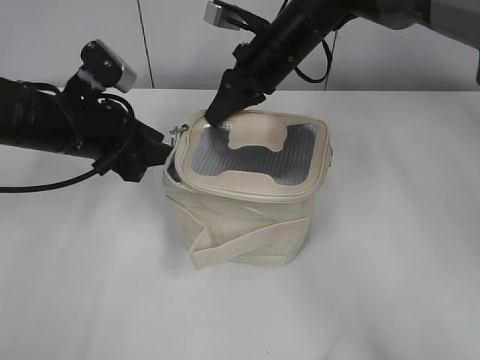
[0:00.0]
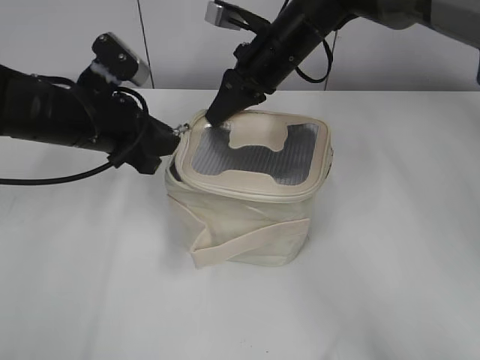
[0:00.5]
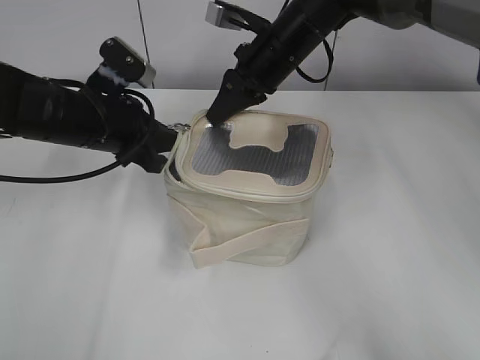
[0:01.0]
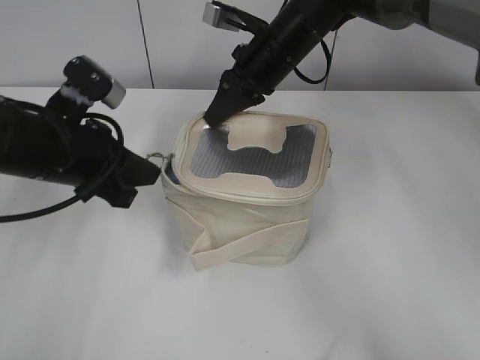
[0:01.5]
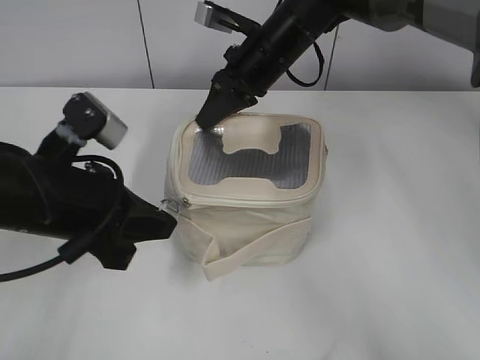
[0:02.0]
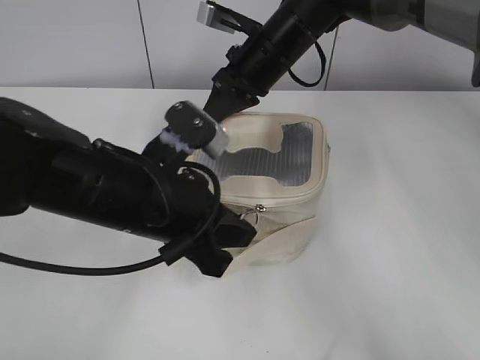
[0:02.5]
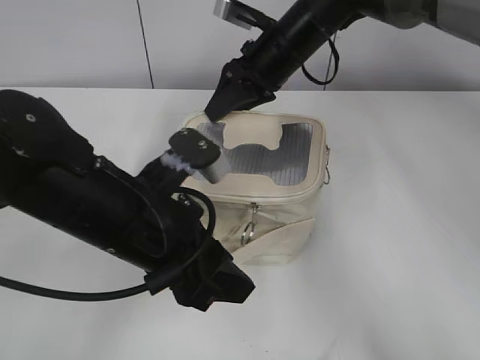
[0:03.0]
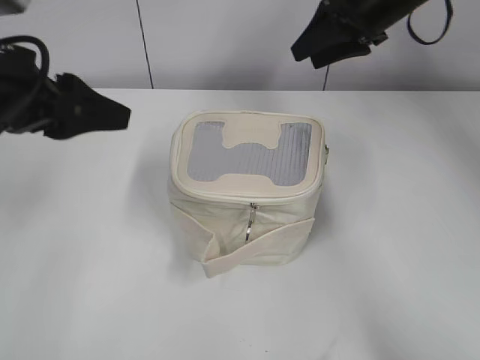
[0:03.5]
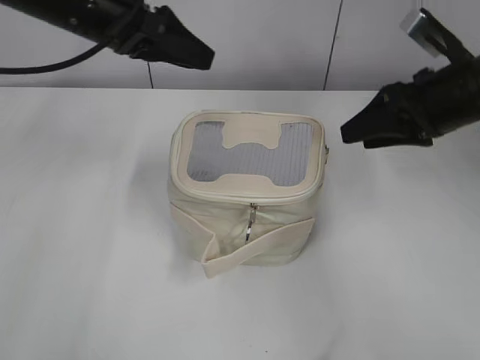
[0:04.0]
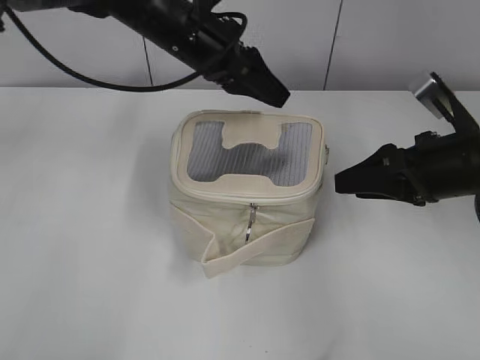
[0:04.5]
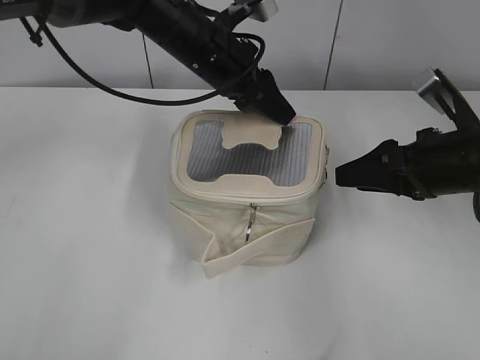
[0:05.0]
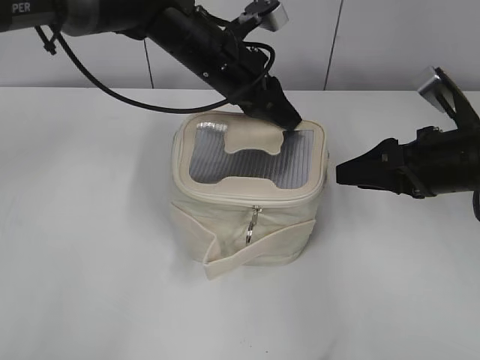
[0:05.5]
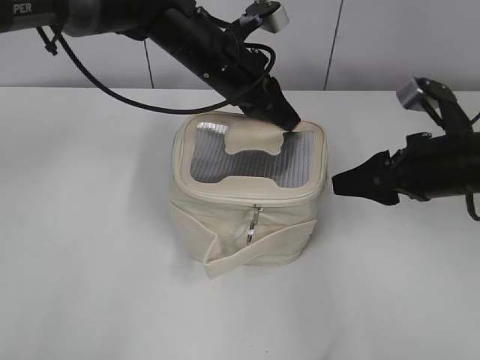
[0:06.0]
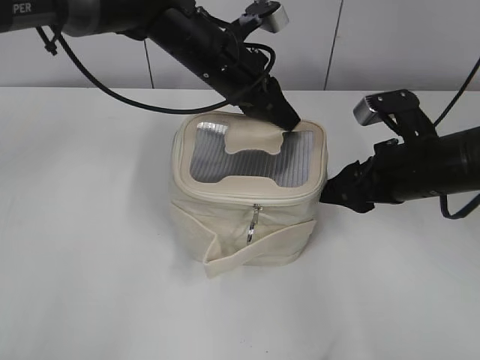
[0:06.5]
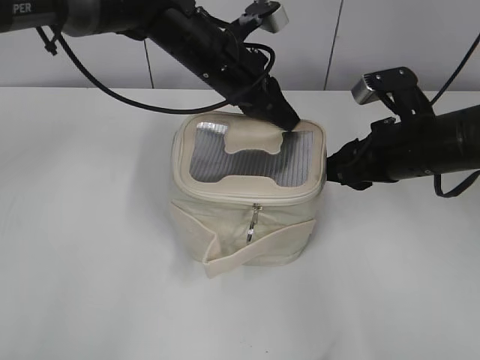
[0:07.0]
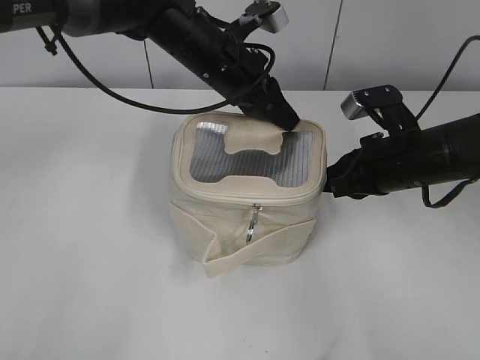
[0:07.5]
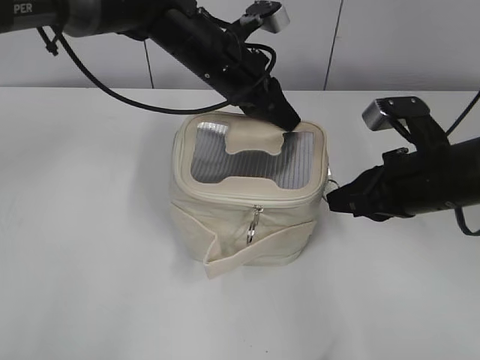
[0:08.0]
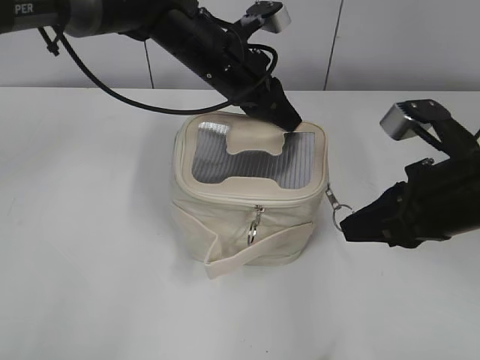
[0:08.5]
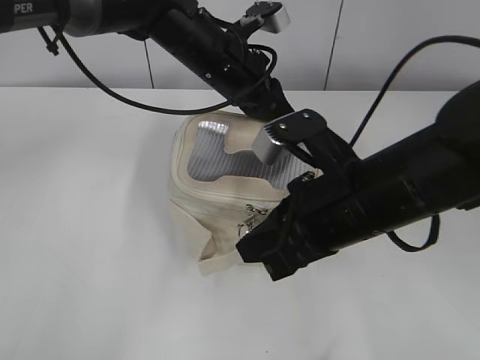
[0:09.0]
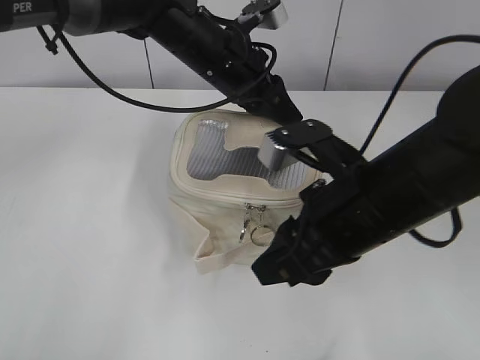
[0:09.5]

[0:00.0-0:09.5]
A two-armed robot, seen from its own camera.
Step, 0:00.0 to 0:02.5: Zip up the bag with your left hand.
Step, 0:03.5 to 0:09.0: Zip up the bag with your right hand.
0:00.0 to 0:02.0: The left gripper travels backward by some 10 cm, and closes up.
0:02.0 to 0:04.0: The right gripper heads to the right and backward, covering approximately 20 cm, and opens. Meanwhile the left gripper goes approximately 15 cm forward and upward, and opens up.
0:04.0 to 0:05.5: The left gripper moves to the right and downward, roughly 15 cm. Meanwhile the right gripper shifts approximately 10 cm backward and downward.
0:05.5 to 0:07.5: The left gripper closes. Meanwhile the right gripper shifts by roughly 5 cm, and closes.
0:07.5 to 0:09.5: The right gripper heads backward and to the left, covering roughly 15 cm, and opens its fingers.

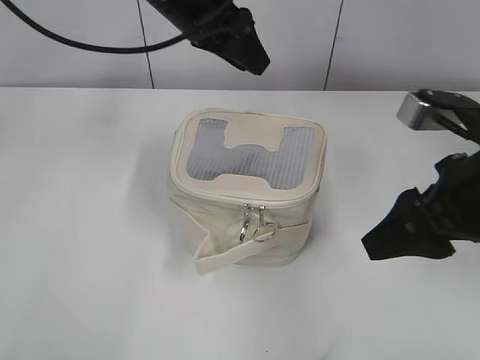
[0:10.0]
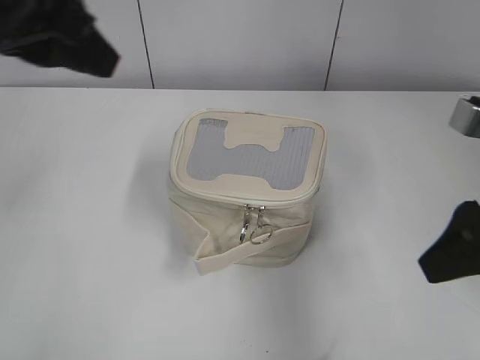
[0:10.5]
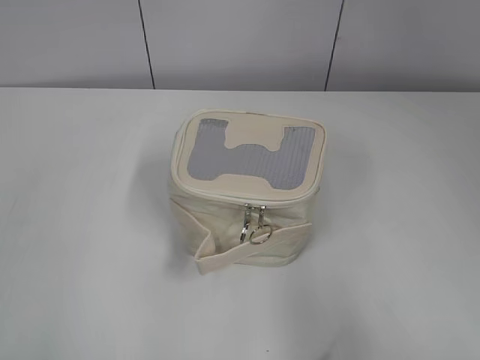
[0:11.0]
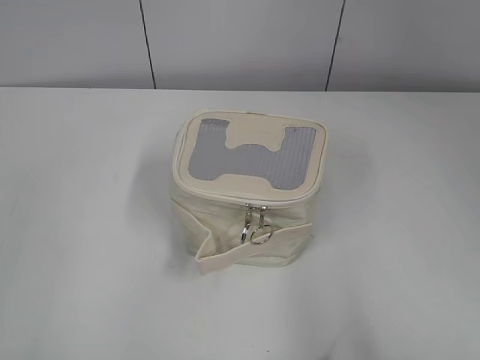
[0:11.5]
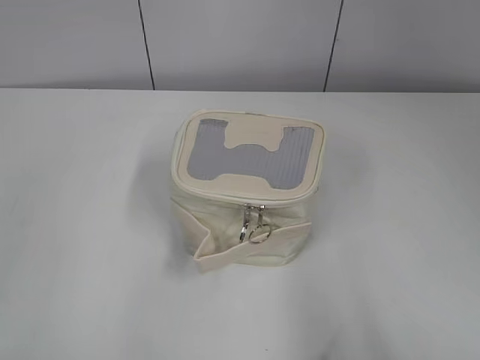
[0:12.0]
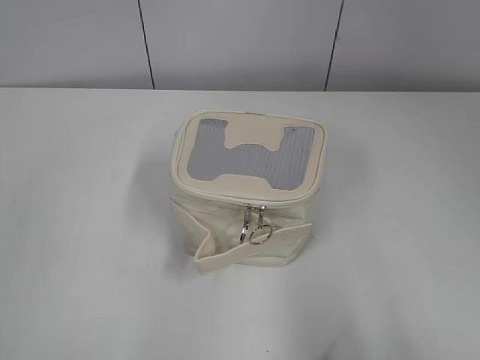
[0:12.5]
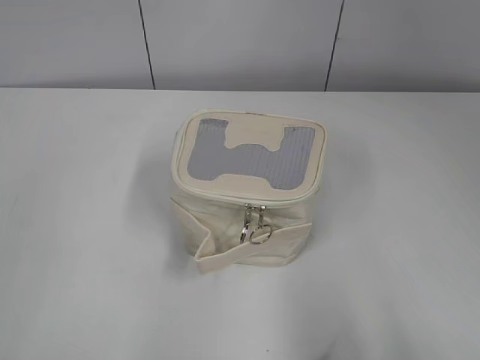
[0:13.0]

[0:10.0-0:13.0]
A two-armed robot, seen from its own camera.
0:10.0 to 0:11.5: The right gripper moves backward and to the right, roughly 25 cm. The left gripper shifts about 50 cm backward and to the left.

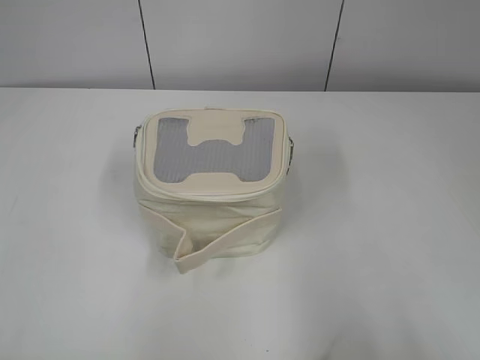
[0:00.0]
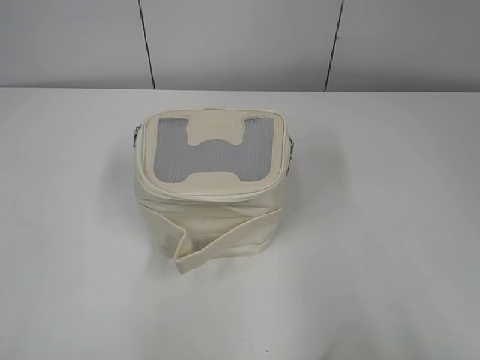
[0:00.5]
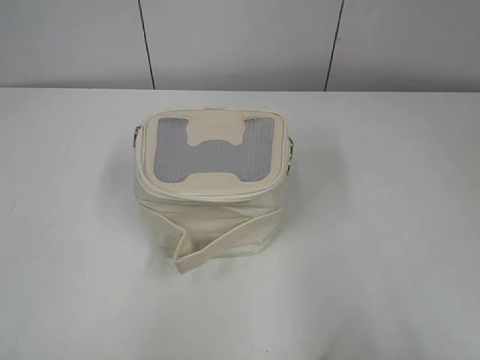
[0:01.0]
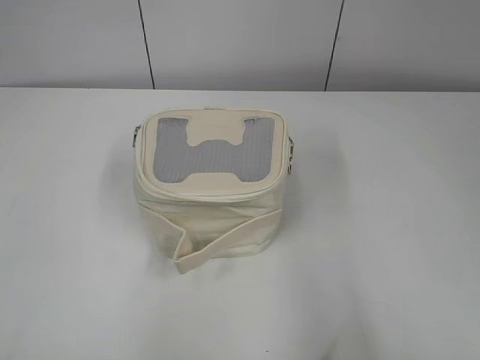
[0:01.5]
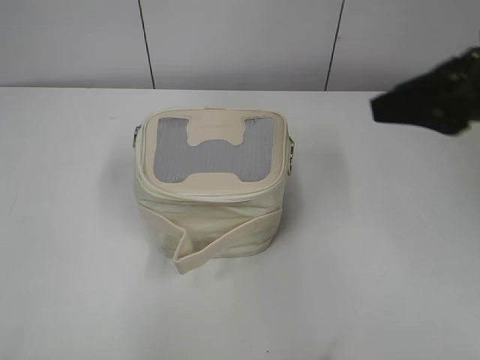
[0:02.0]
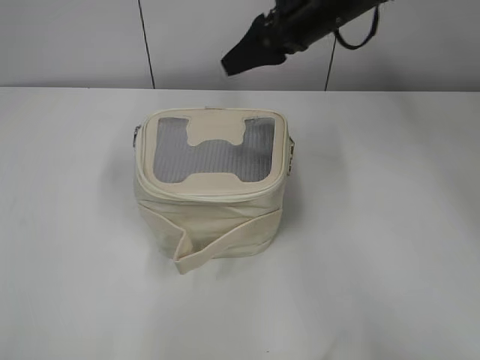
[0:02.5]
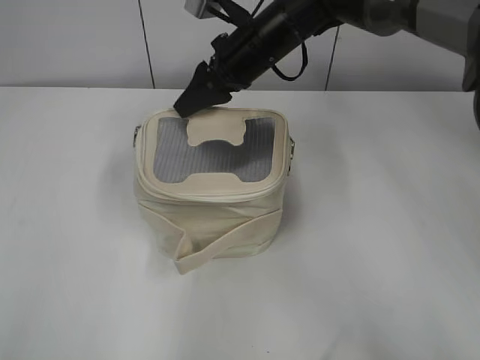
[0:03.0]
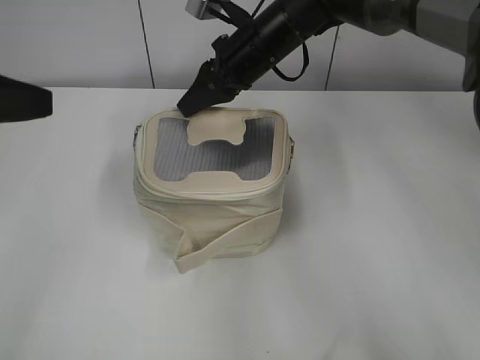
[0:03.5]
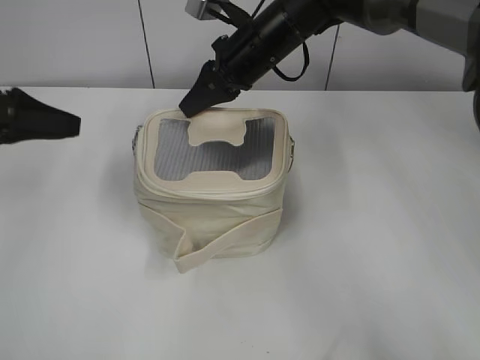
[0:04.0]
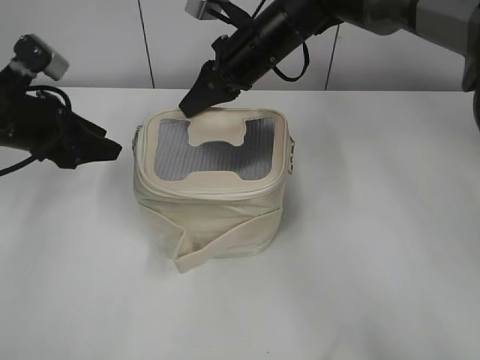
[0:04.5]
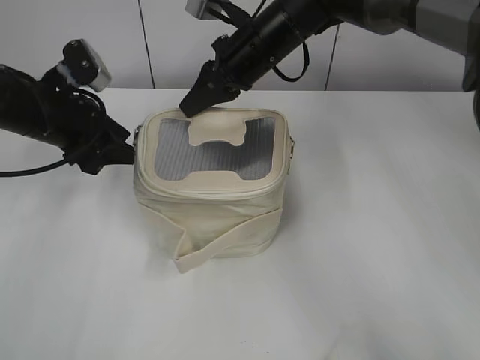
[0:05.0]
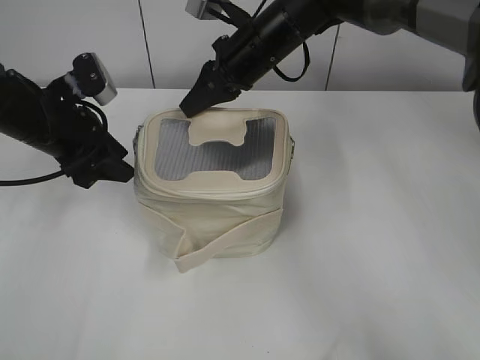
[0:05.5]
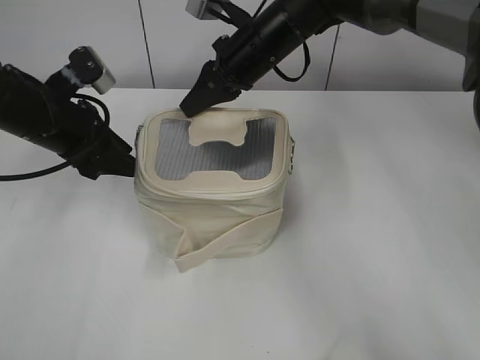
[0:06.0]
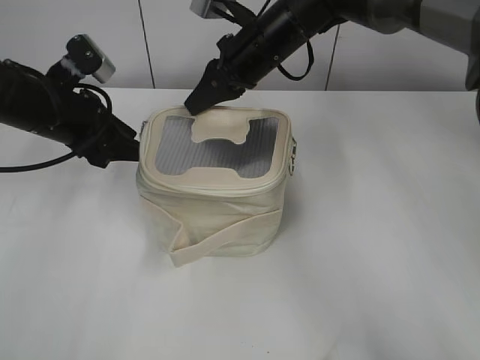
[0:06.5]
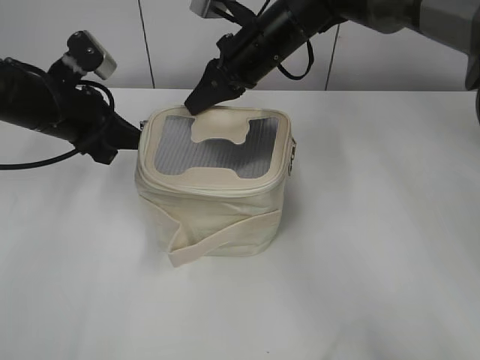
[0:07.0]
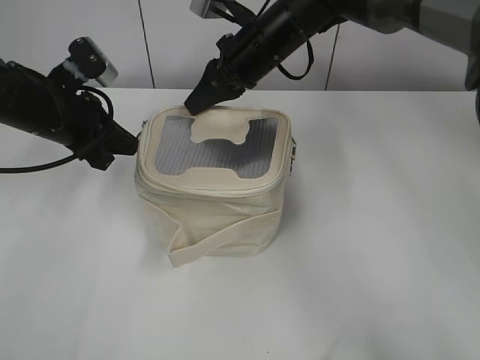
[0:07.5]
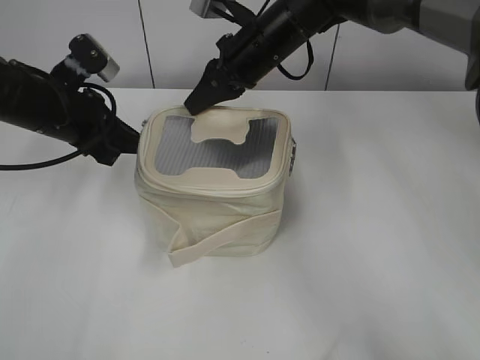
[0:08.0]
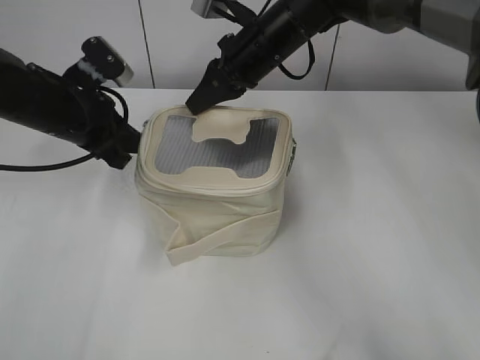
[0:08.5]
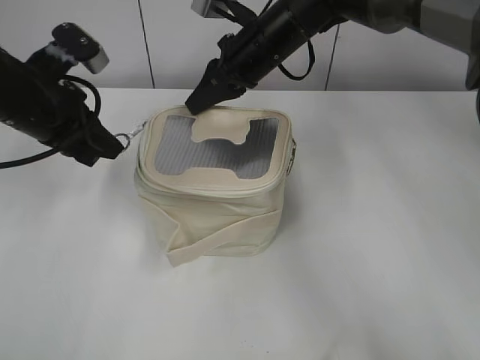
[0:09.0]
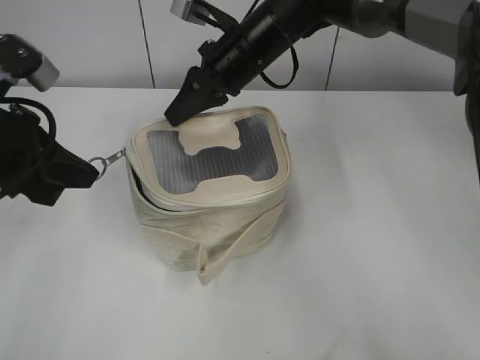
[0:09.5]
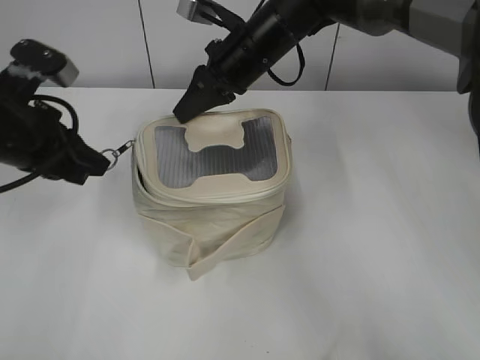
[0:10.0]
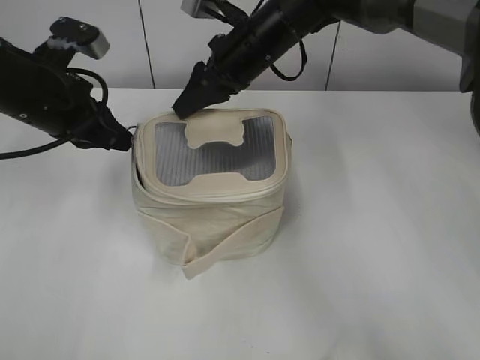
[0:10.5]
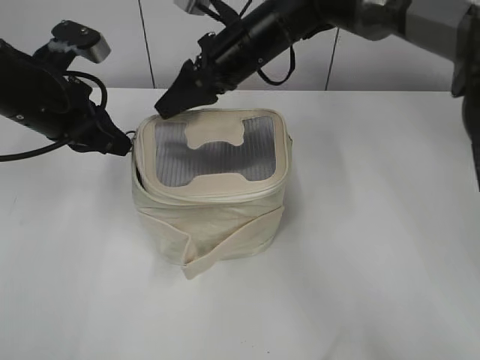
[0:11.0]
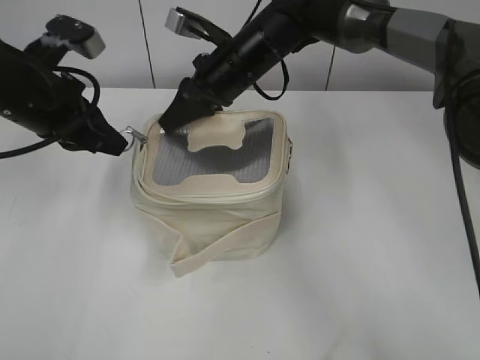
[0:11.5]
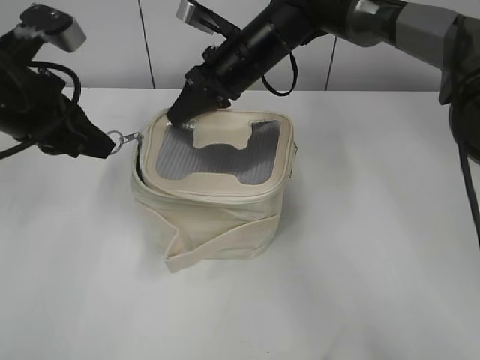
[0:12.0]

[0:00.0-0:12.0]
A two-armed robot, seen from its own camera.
0:02.0 to 0:04.0: The right gripper moves forward, to the left and downward, some 30 cm, and closes its fingers. The left gripper moves forward, approximately 30 cm.
0:04.0 to 0:06.0: The left gripper travels to the right by about 10 cm.
0:06.0 to 0:08.0: The left gripper closes.
0:08.0 to 0:10.0: The left gripper is displaced backward by approximately 10 cm.
0:10.0 to 0:12.0: The right gripper opens and closes again.

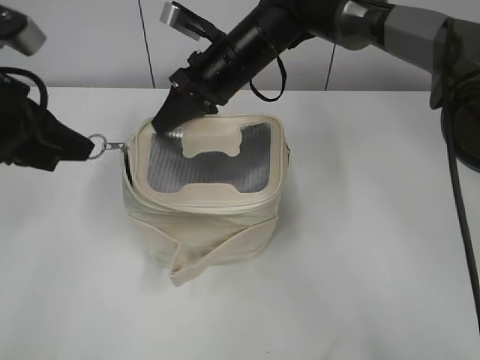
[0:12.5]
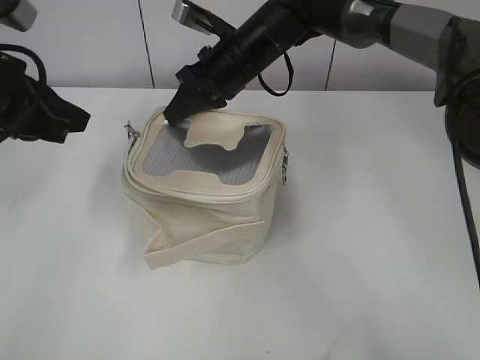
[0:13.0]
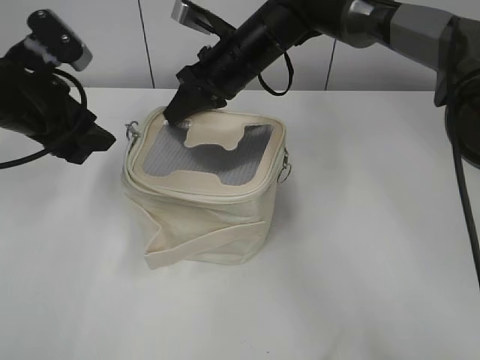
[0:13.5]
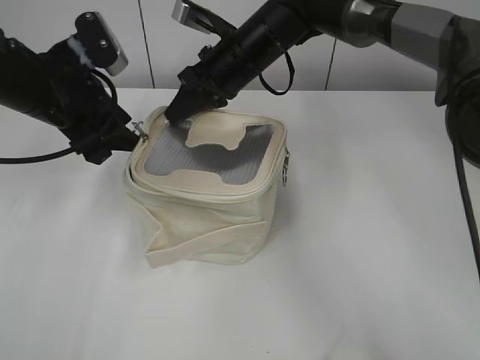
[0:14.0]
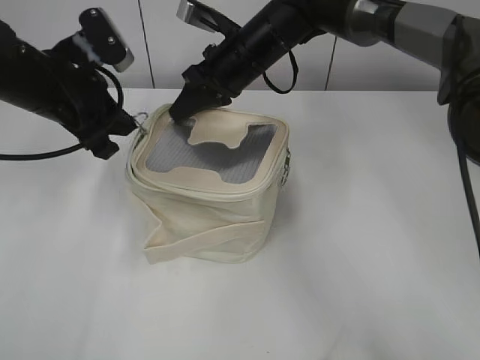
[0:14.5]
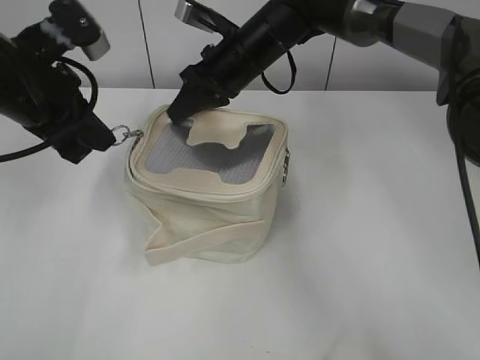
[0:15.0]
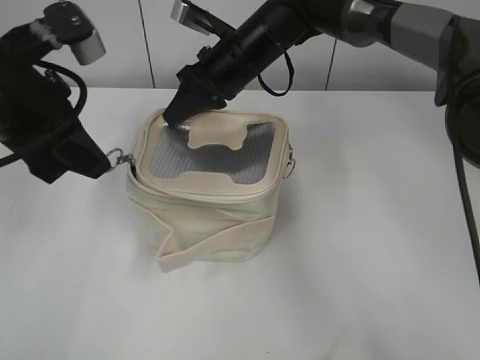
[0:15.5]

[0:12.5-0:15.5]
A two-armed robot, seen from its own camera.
0:12.5 to 0:14.0: The left gripper heads forward, covering roughly 10 cm, and opens.
0:14.0 to 0:15.5: The left gripper is displaced backward and upward by some 10 cm, and closes its fingers.
